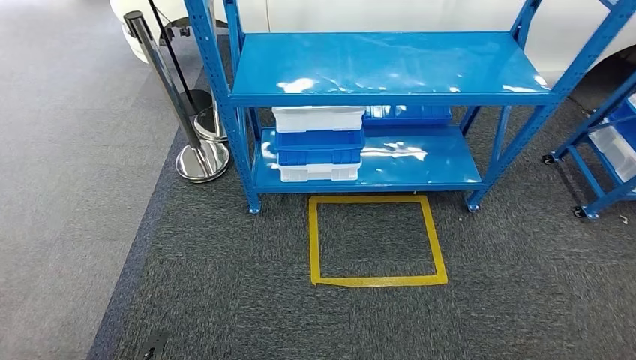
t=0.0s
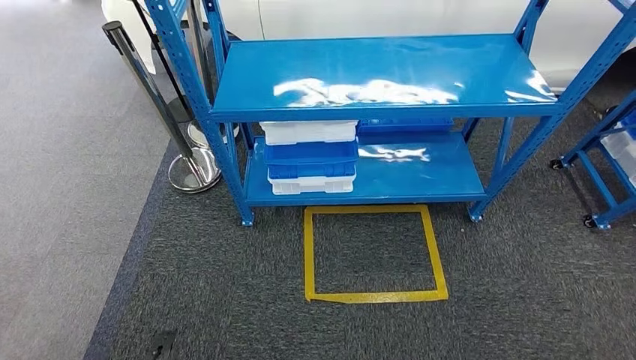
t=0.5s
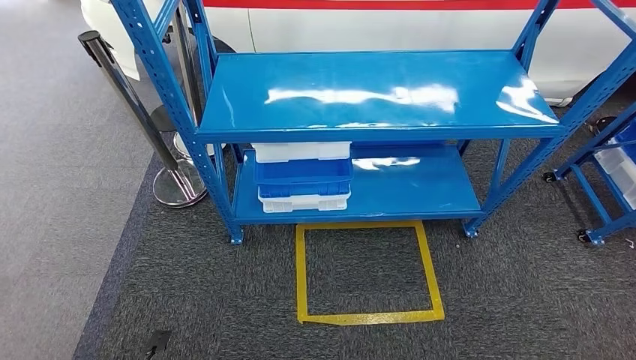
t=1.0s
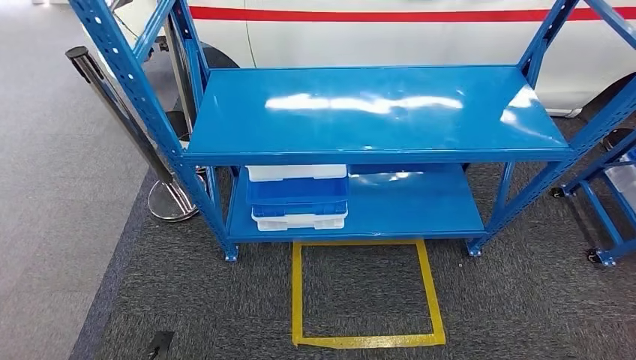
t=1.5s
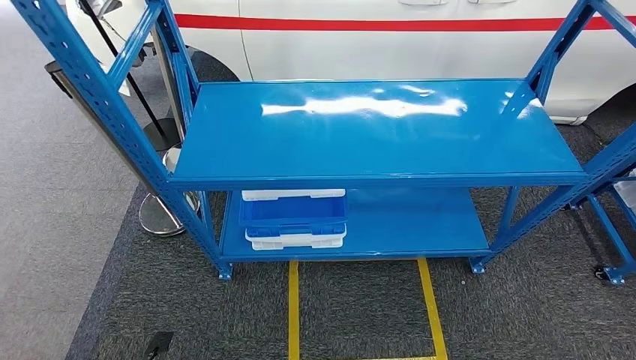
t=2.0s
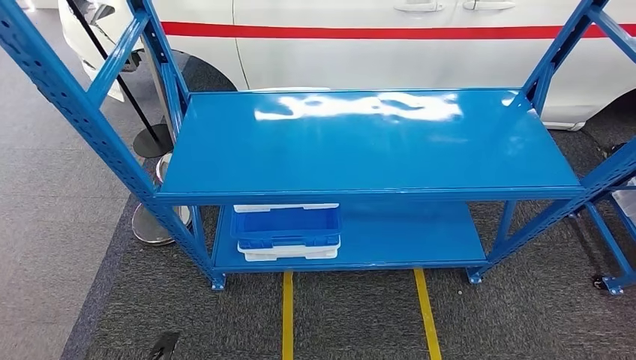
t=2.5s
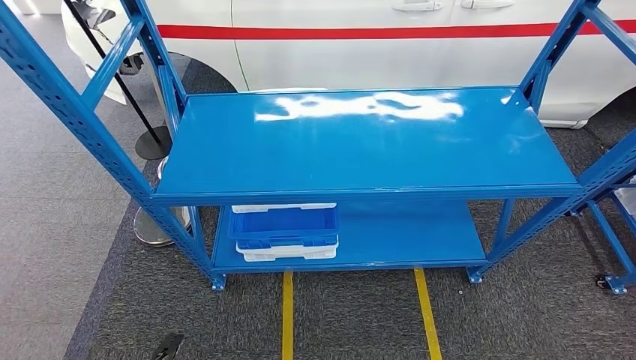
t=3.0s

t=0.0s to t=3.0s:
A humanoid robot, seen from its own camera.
Step, t=0.0s to t=3.0s: Return to the initial position at the shelf.
